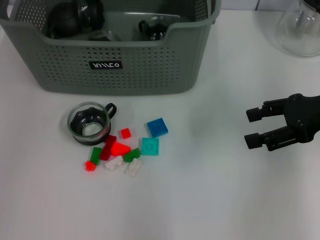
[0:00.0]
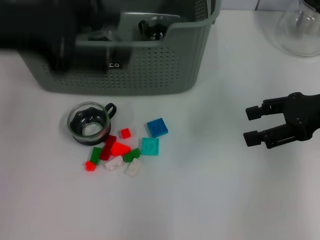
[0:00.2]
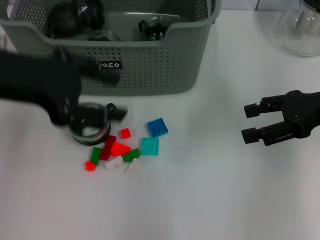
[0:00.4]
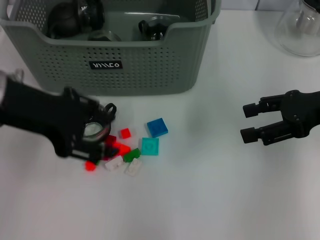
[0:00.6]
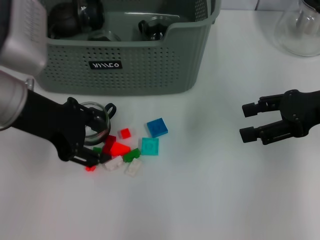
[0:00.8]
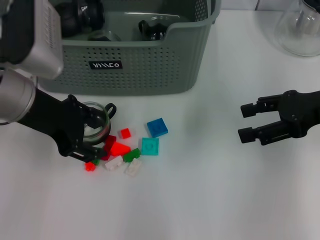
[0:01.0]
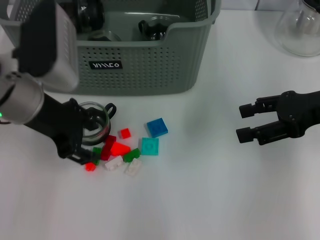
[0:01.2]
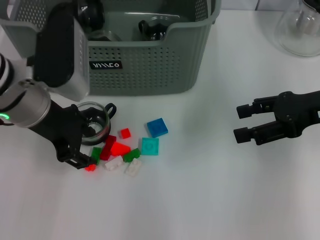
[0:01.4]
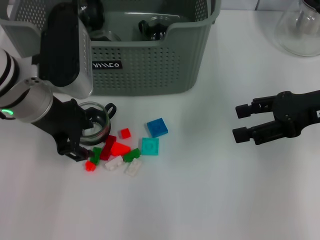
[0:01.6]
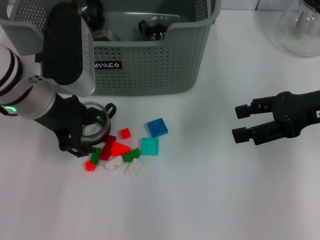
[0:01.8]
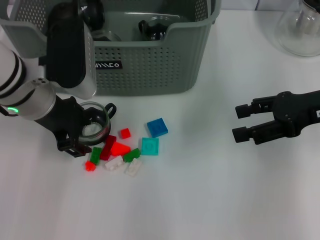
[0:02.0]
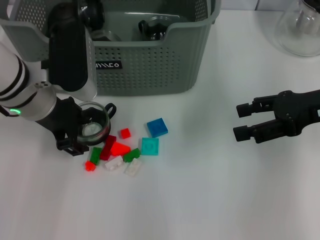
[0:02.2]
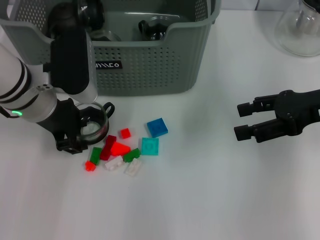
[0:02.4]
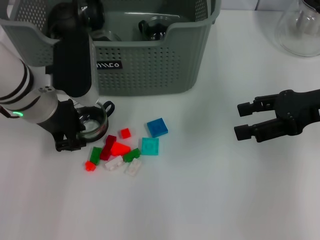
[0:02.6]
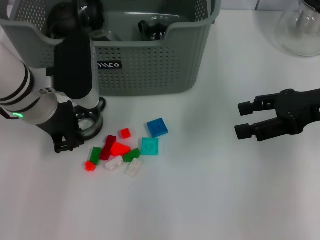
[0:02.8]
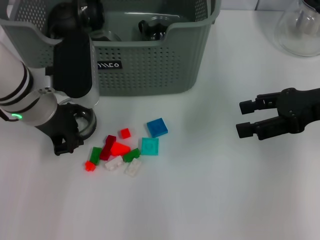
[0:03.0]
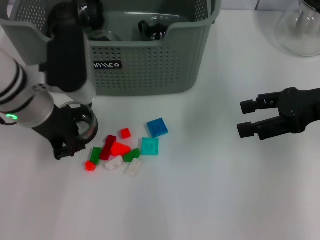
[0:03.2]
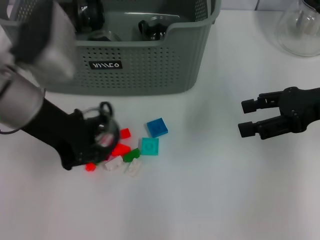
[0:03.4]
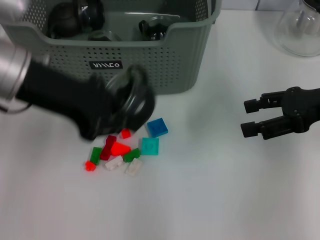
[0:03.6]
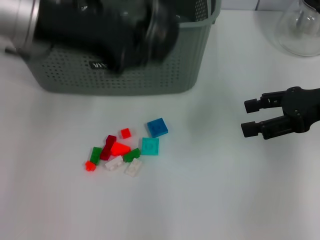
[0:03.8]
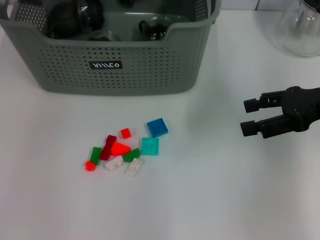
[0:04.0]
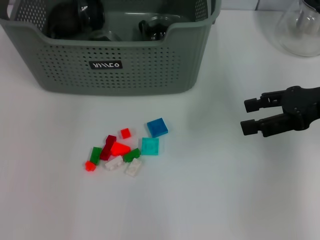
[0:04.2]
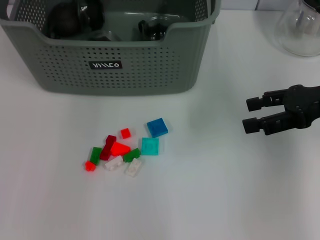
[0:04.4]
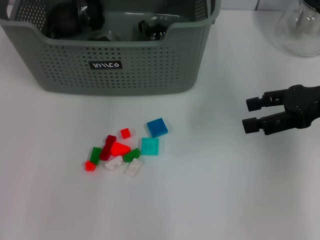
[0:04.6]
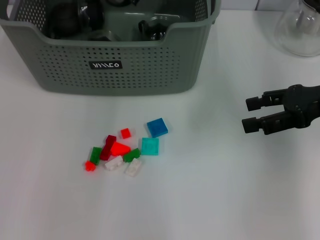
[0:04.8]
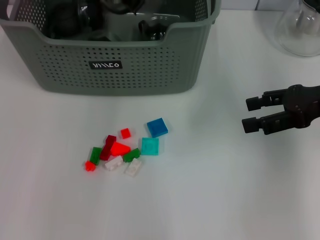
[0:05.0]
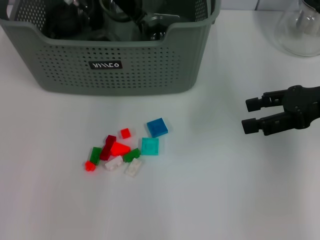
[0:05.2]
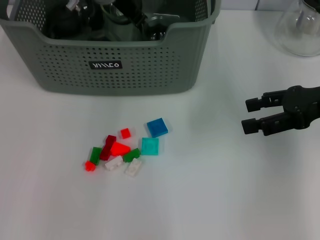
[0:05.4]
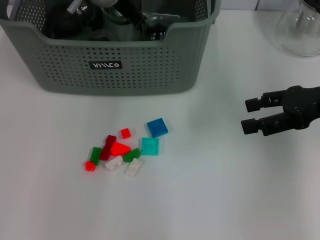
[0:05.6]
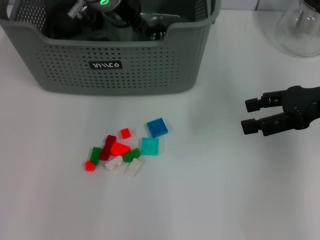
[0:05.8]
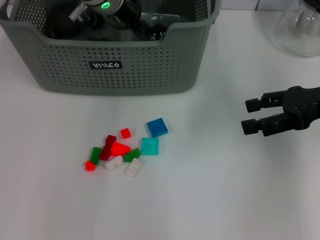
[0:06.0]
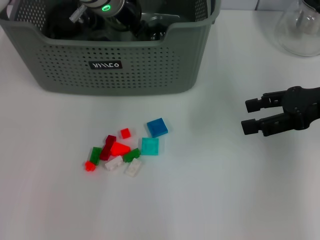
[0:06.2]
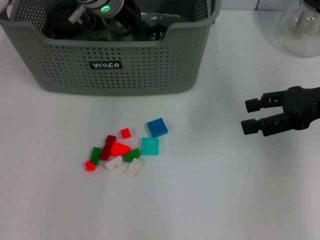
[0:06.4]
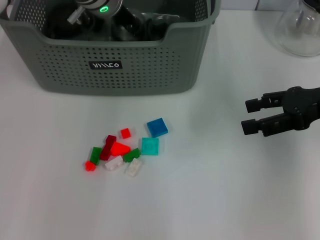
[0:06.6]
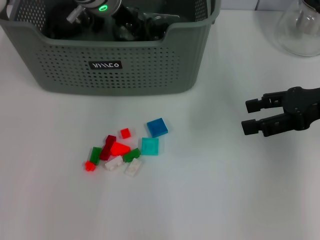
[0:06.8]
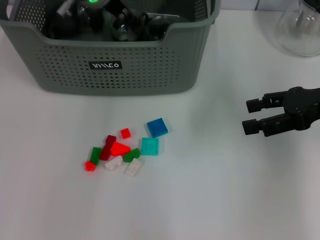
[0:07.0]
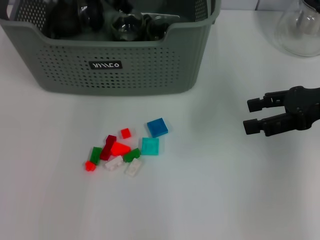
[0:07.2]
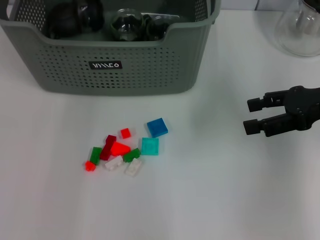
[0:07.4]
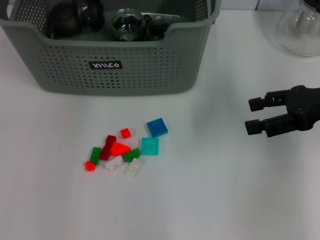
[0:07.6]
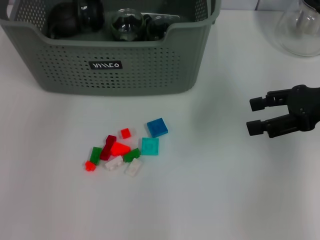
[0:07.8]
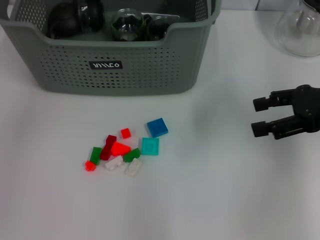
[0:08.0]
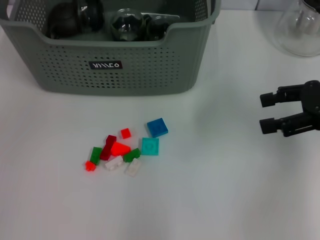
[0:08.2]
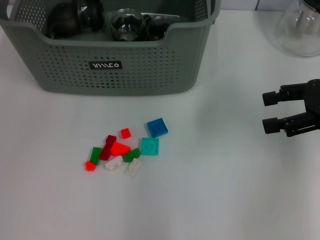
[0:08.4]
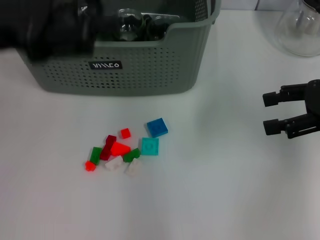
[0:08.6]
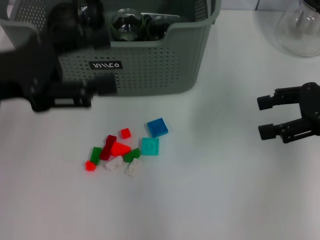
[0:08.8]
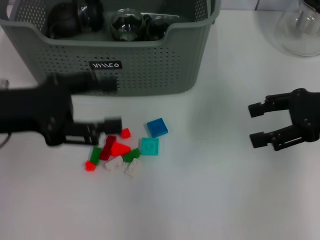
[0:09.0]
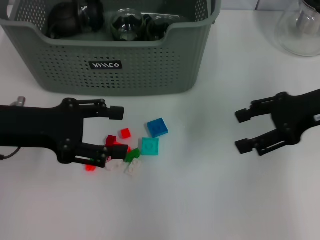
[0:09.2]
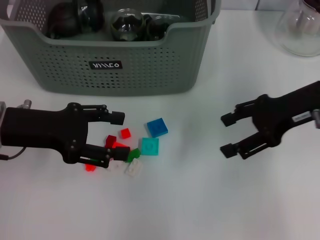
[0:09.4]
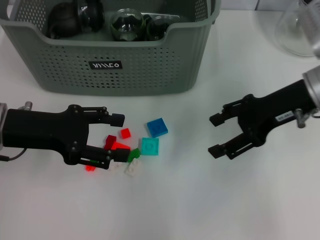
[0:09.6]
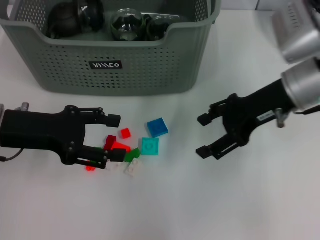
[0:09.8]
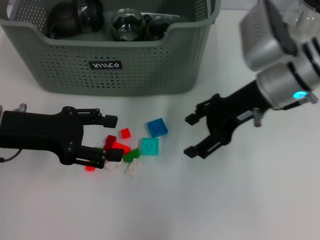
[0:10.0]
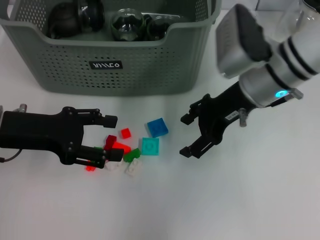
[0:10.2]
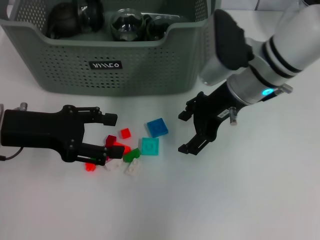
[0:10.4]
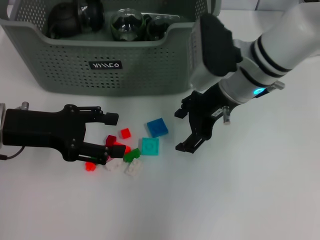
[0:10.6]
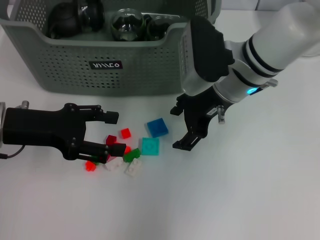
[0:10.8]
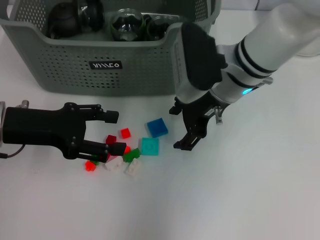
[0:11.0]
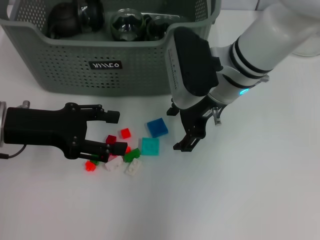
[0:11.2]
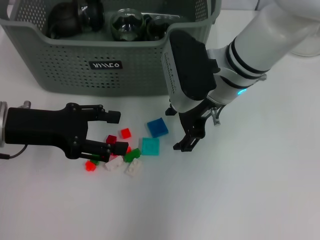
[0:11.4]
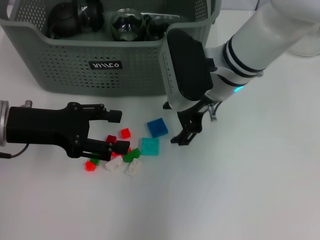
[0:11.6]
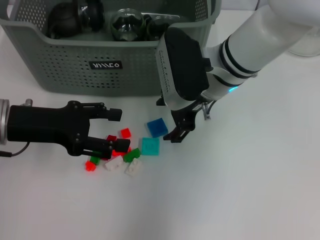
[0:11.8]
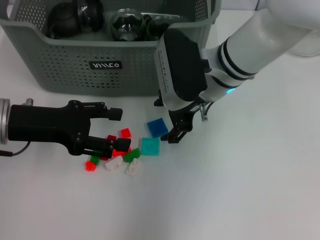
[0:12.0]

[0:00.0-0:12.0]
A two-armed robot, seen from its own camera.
Task of the whole recording: pick up the teacup on the table and place it into the storage bin, pick up the block on the table and place it into the storage bin.
Step, 0.0 to 3.0 s: Grasp the cup with left gripper.
Step, 3.2 to 6.6 s: Place the cup in the storage box with left gripper.
0.0 to 1.6 s: The left gripper is displaced downward by approximately 15 cm.
1.6 to 3.0 s: The left gripper closes.
3.0 to 4.4 s: The left gripper heads upward and forward, covering approximately 20 cm.
4.4 to 6.0 s: The left gripper goes about 10 cm downward.
6.0 to 7.6 s: The left gripper shifts some 15 cm upward and to the left, and opens up.
7.6 to 9.0 s: The left gripper is displaced backward, downward and to the left by about 25 cm.
9.0 to 10.4 s: The right gripper goes about 15 cm to the left.
10.4 to 12.0 s: The right gripper travels to the left by about 5 cm.

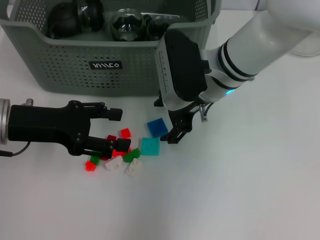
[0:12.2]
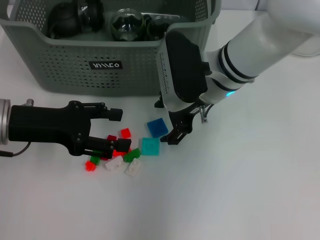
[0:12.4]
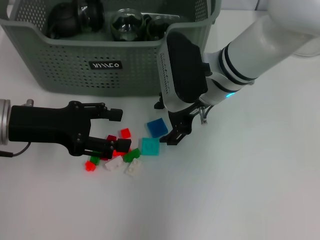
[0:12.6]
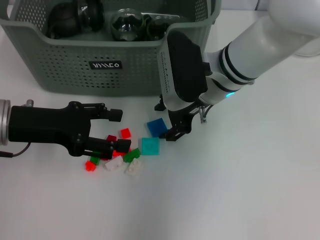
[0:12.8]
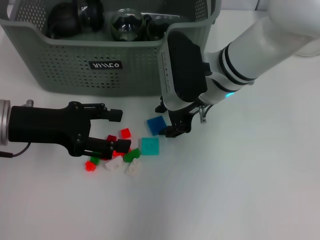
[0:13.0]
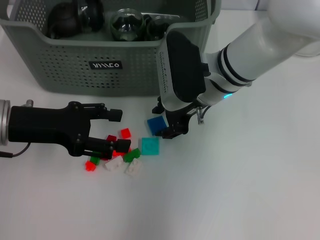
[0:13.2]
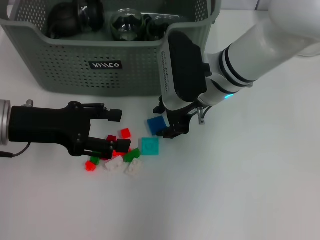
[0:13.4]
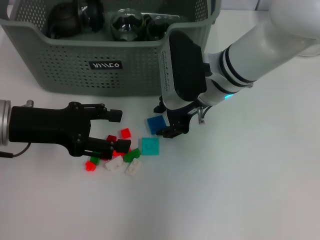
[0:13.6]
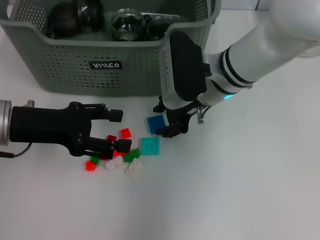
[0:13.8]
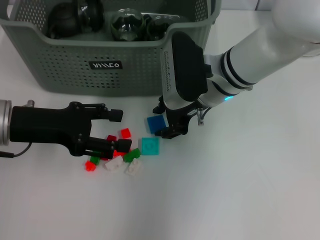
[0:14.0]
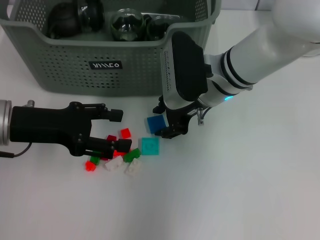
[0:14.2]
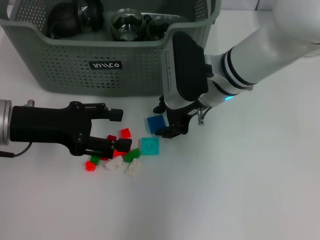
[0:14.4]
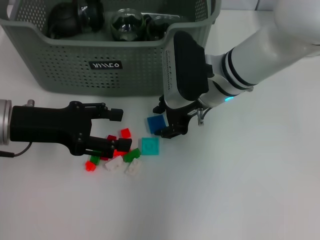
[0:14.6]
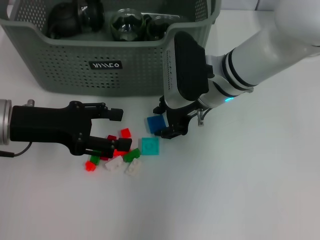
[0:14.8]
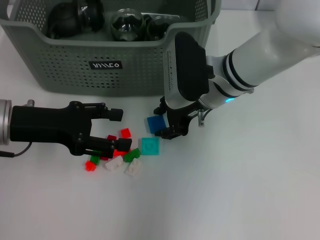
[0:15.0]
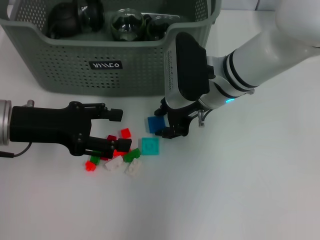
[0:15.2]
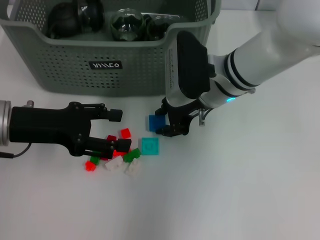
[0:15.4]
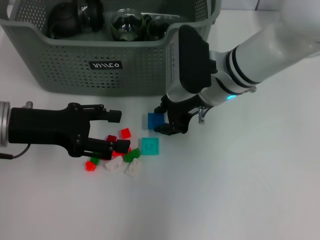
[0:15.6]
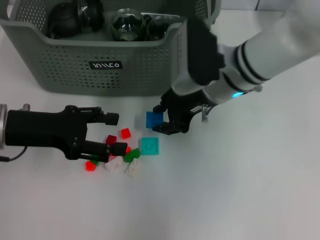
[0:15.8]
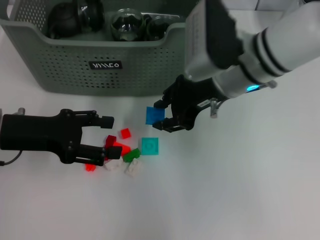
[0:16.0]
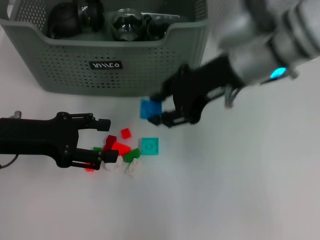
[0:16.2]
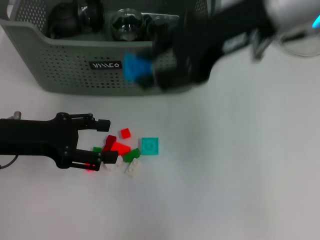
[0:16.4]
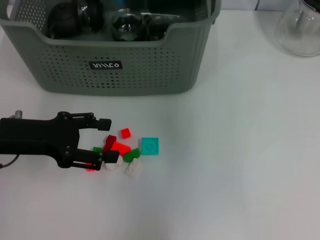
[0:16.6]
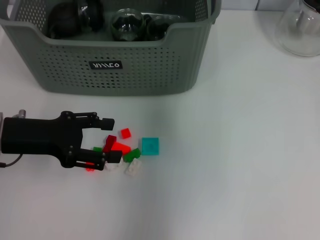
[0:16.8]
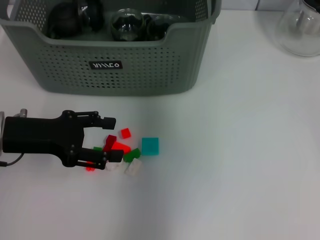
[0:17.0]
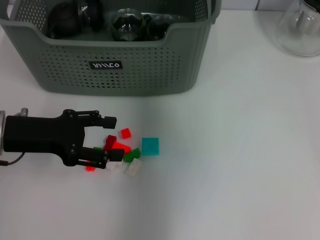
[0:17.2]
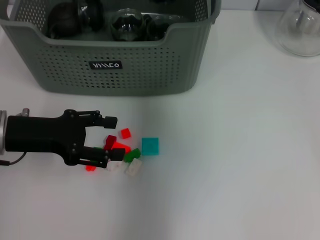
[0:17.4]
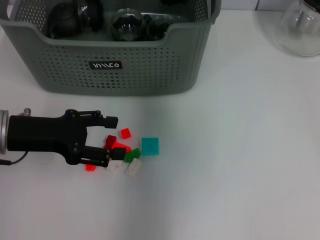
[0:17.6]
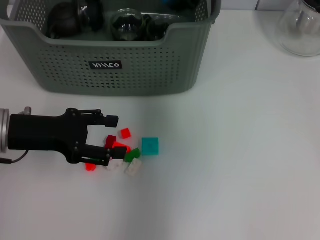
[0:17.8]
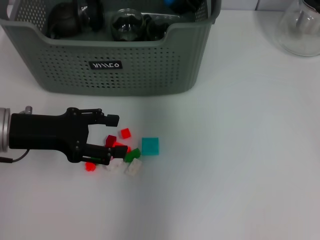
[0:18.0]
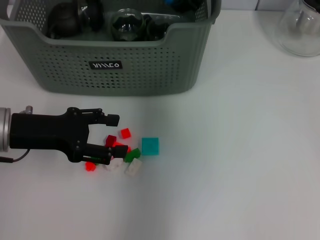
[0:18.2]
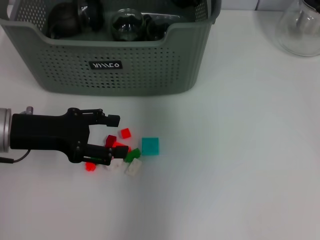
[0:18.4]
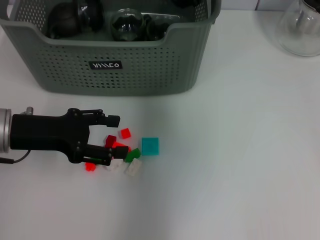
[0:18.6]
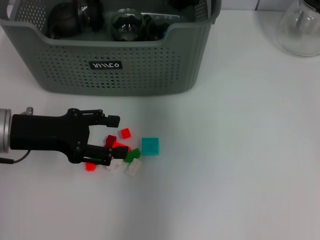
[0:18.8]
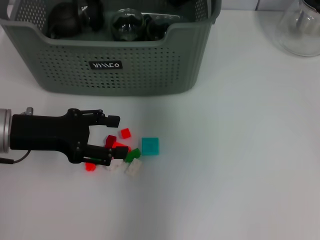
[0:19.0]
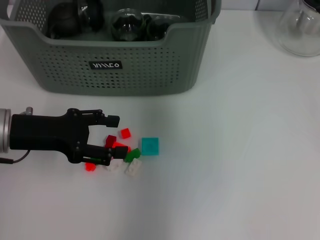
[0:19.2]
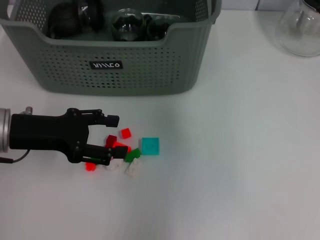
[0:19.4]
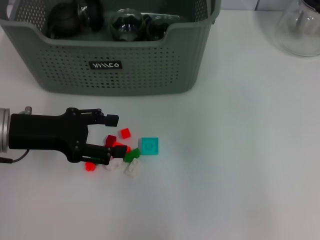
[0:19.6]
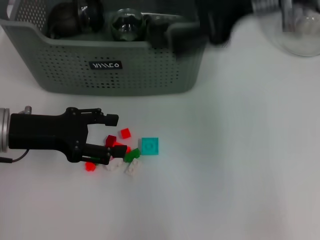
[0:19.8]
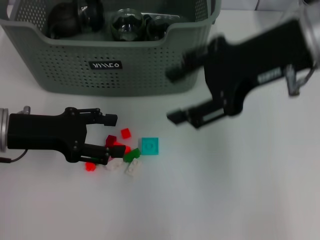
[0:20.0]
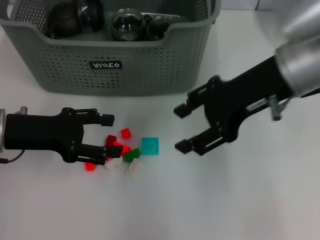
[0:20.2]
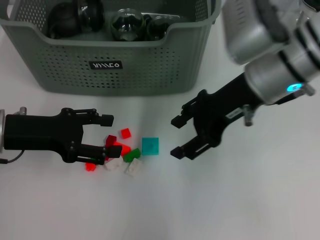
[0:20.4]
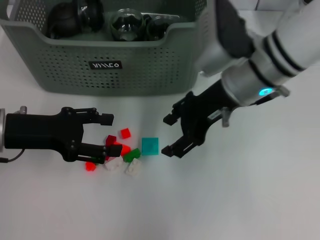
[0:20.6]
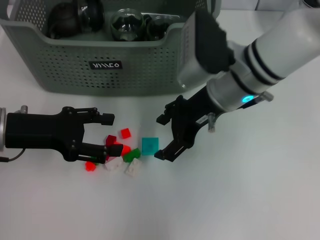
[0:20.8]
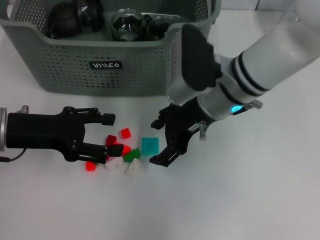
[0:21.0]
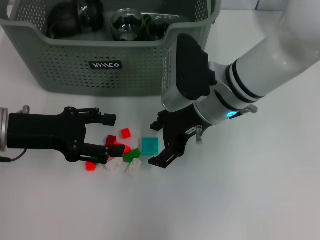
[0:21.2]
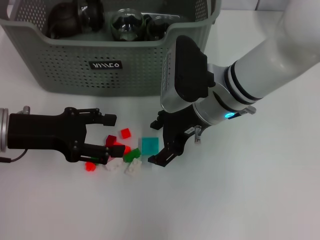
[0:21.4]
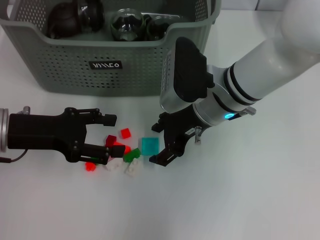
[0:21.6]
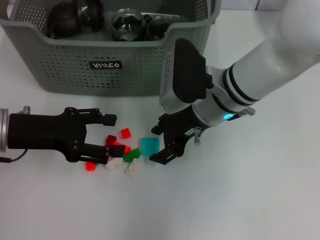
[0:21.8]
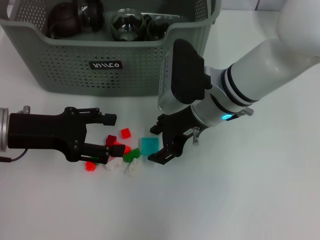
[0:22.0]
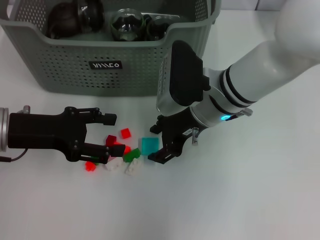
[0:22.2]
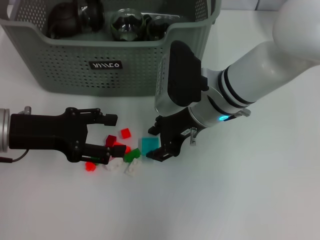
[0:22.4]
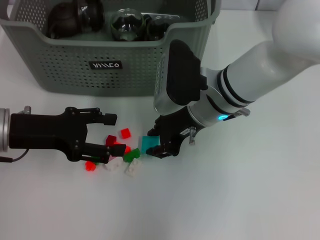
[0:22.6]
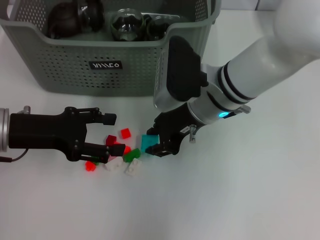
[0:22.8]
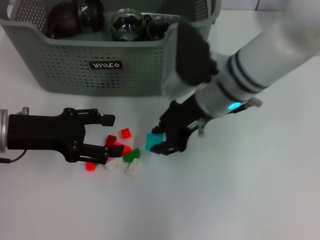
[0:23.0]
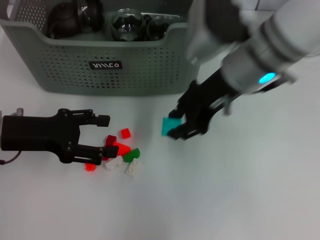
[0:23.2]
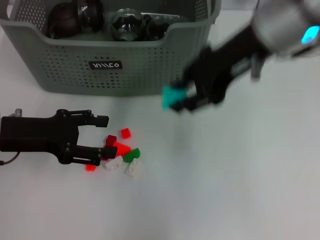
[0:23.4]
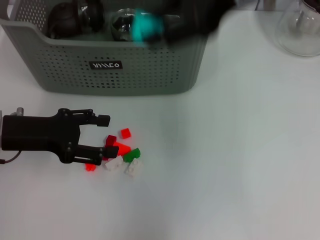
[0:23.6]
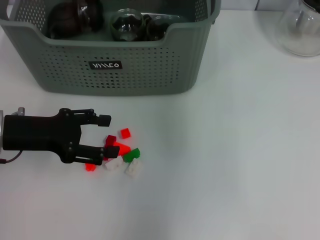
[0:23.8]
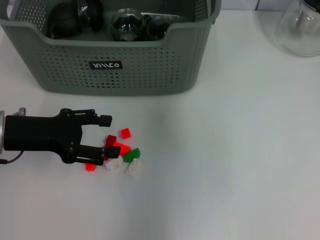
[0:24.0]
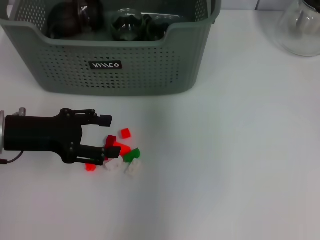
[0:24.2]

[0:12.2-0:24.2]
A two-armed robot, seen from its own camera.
Task of the whole recording: pick up the teacup on the table and place it into the storage bin, pick up the block on the table and place it into the storage bin.
Step, 12.2 to 15.2 s: Grasp the dark blue block with right gripper.
Step, 15.4 to 19.0 s: Place the dark blue block in the storage box with right gripper.
Step, 19.2 to 22.6 s: Grasp the light blue block with right gripper.
12.2 to 13.8 s: The right gripper closes its fingers.
13.8 to 15.2 s: Both grippers stay put.
15.2 to 16.6 s: The right gripper goes approximately 25 cm upward.
16.6 to 18.2 s: The right gripper moves forward and downward, approximately 15 cm.
18.2 to 19.8 s: The right gripper goes about 15 cm backward and upward, and opens its fingers.
19.8 to 21.2 s: The right gripper travels downward and to the left by about 20 cm.
21.2 to 22.6 s: The right gripper closes its fingers.
22.6 to 24.2 s: The right gripper heads upward and forward, covering roughly 20 cm.
